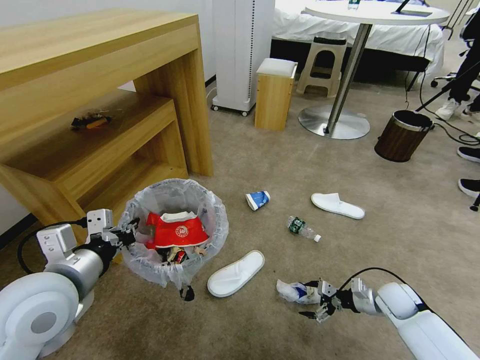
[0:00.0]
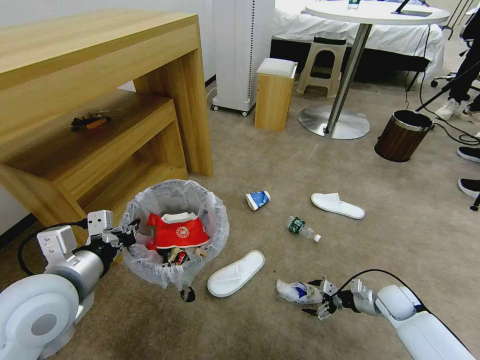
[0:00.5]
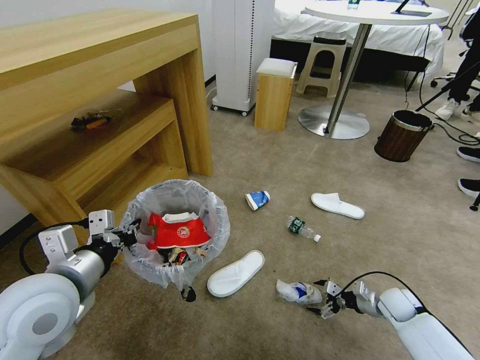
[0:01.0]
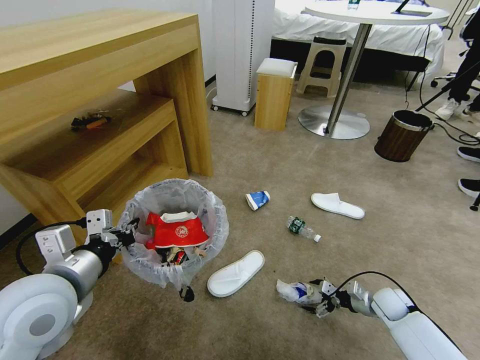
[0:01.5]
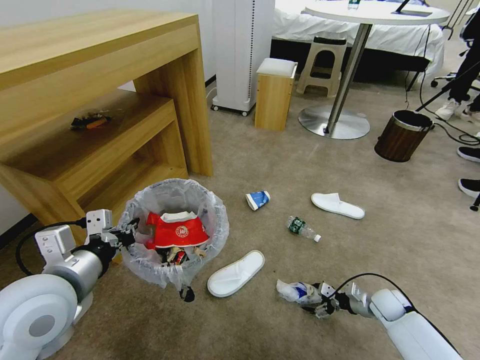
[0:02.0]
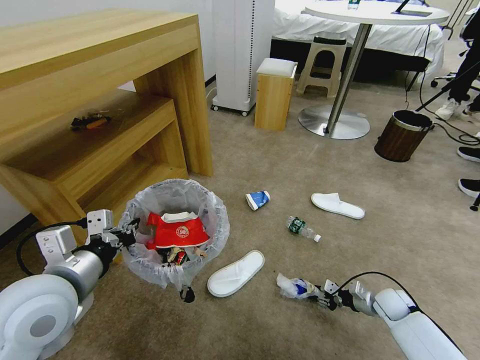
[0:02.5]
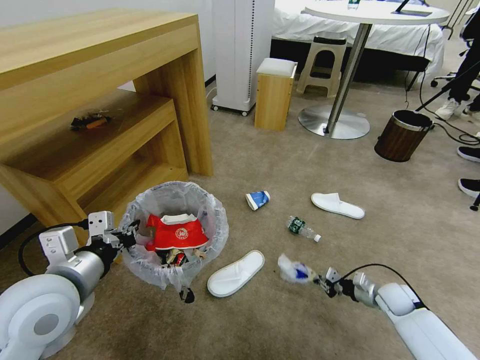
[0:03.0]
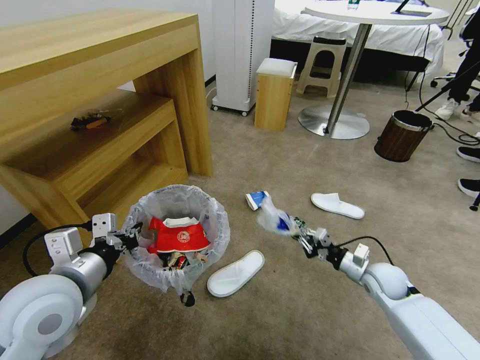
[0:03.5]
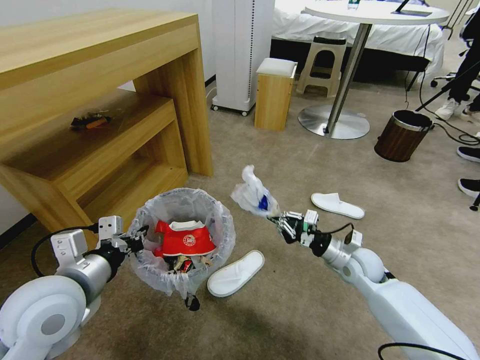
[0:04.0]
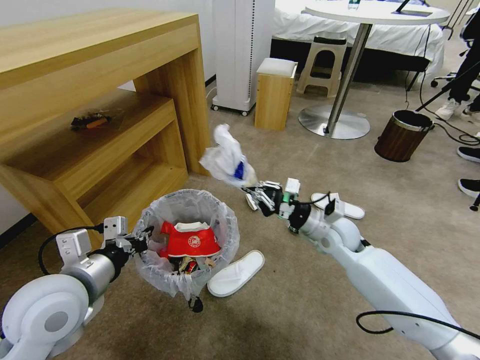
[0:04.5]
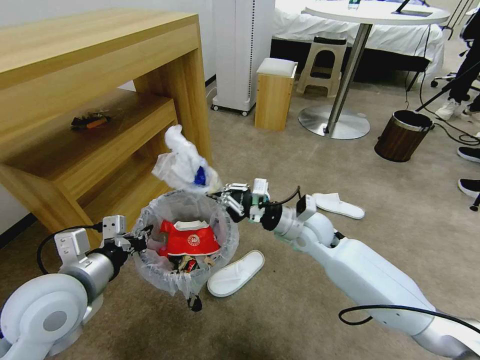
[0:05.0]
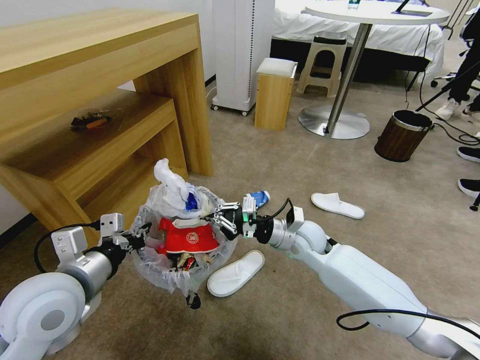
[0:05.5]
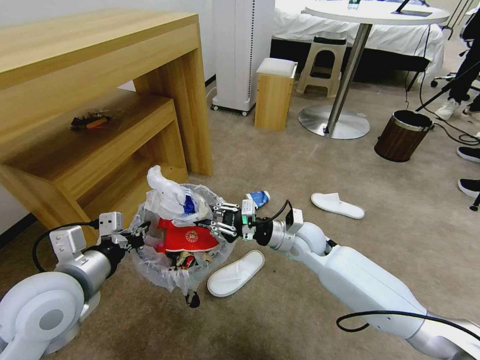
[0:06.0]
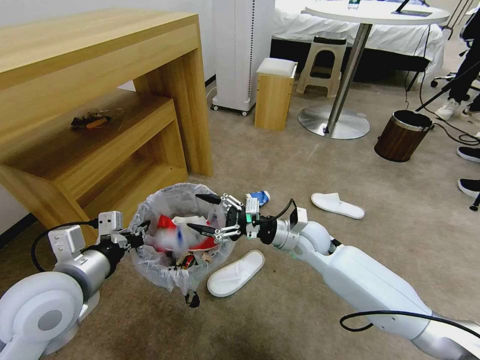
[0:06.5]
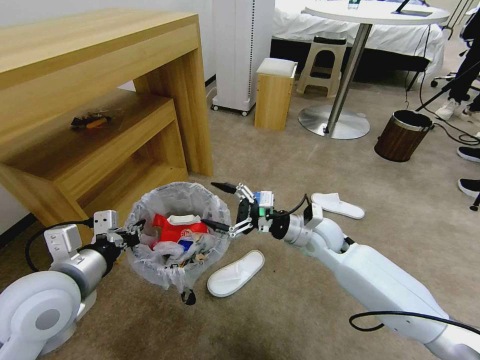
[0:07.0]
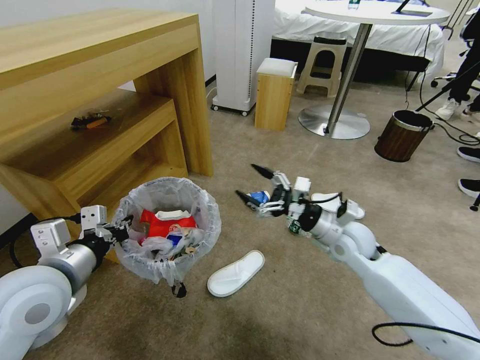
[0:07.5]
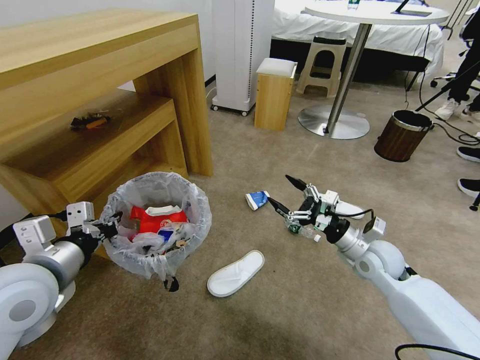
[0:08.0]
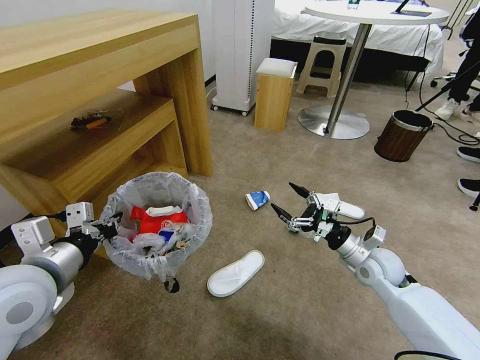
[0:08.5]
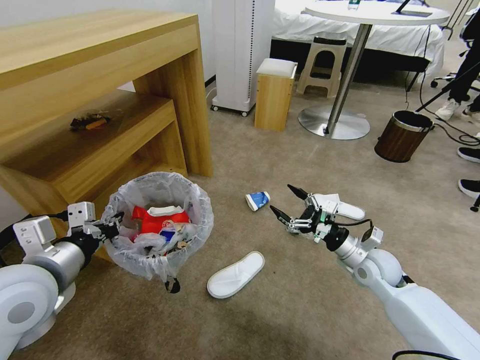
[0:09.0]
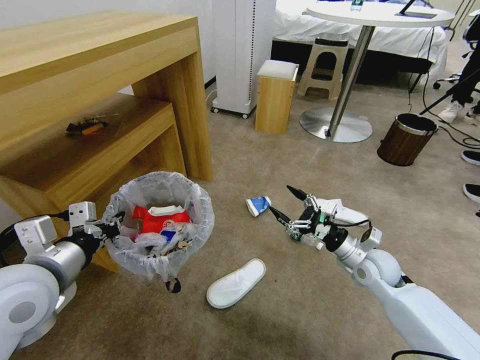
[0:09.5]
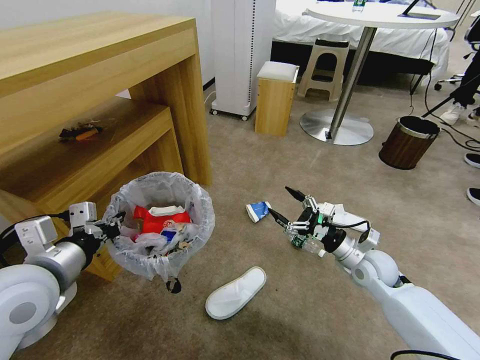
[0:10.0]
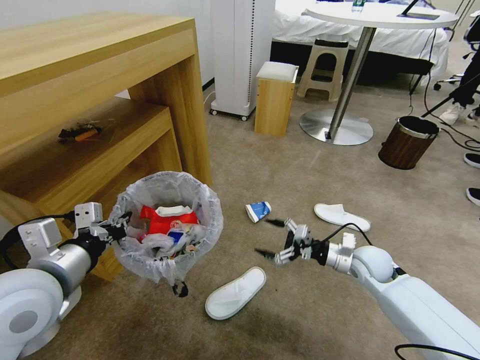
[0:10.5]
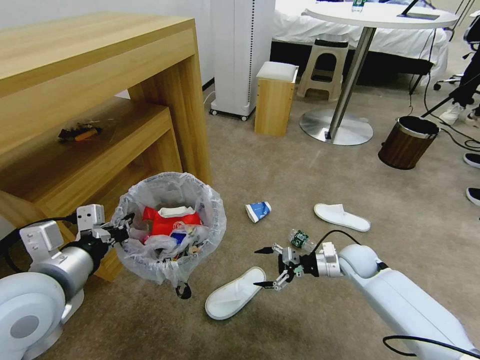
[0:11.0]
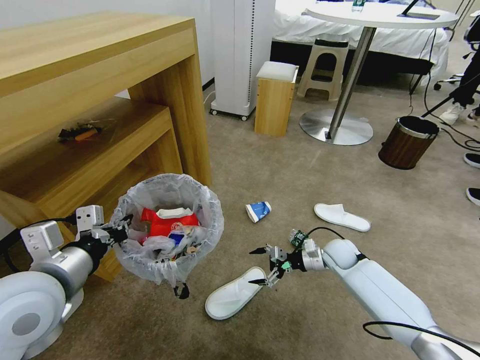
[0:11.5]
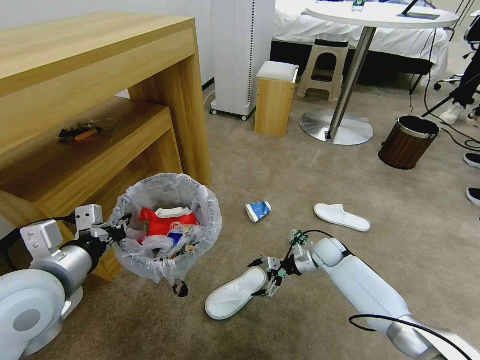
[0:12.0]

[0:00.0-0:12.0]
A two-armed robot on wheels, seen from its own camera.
Task of the whole recording: Pick up the trash bin and place the garbage on the floor into it.
0:00.0 to 0:02.0: The right gripper goes roughly 5 cm downward.
0:02.0 to 0:04.0: The right gripper moves upward and to the left, roughly 20 cm, and closes.
0:04.0 to 0:06.0: The right gripper goes some 15 cm to the left and upward.
0:06.0 to 0:08.0: The right gripper travels to the right by approximately 15 cm, and opens.
0:10.0 to 0:12.0: The right gripper moves downward and forward, approximately 15 cm.

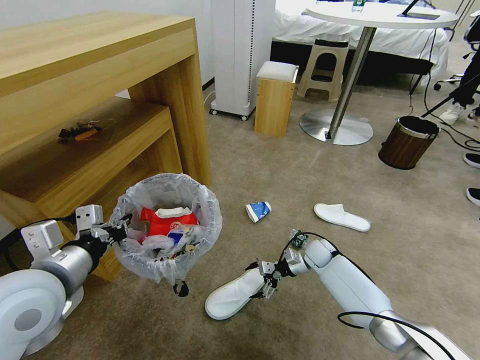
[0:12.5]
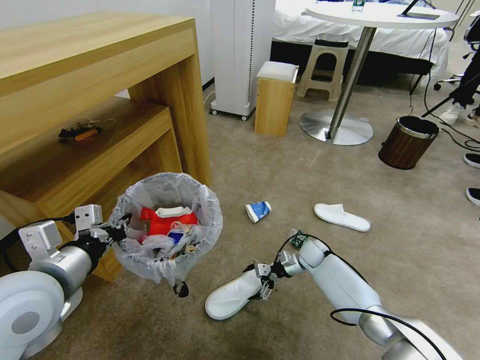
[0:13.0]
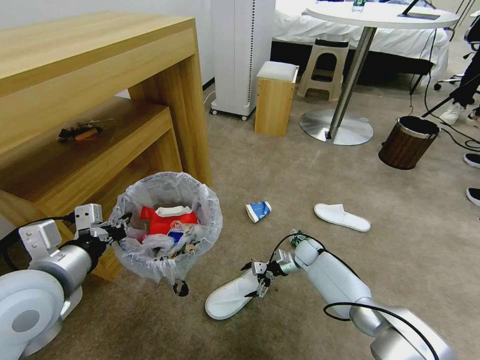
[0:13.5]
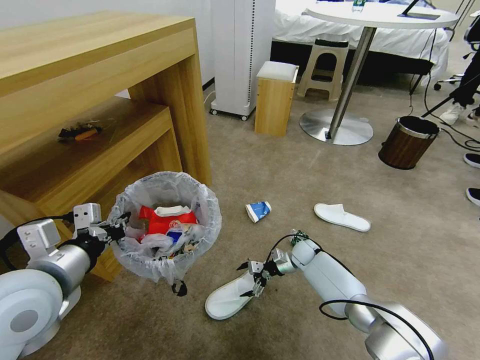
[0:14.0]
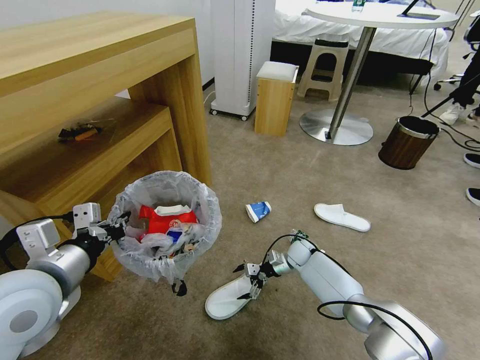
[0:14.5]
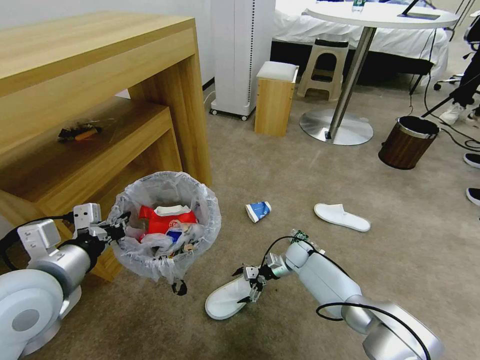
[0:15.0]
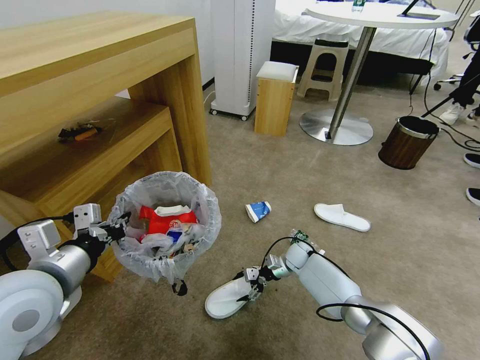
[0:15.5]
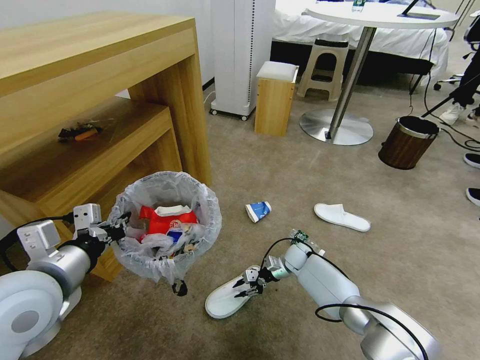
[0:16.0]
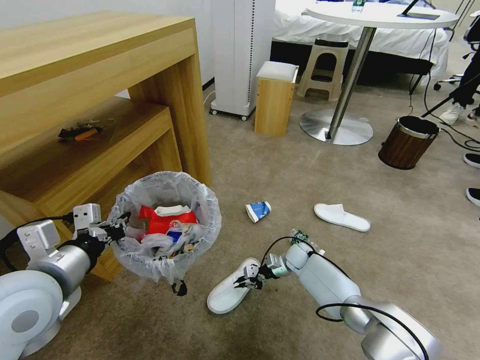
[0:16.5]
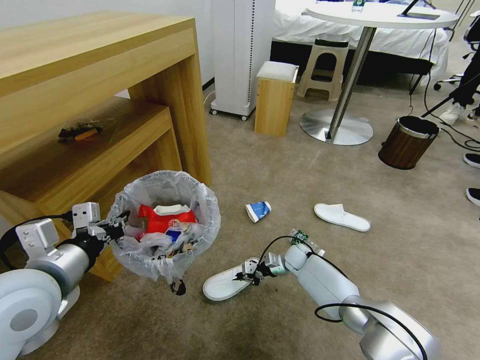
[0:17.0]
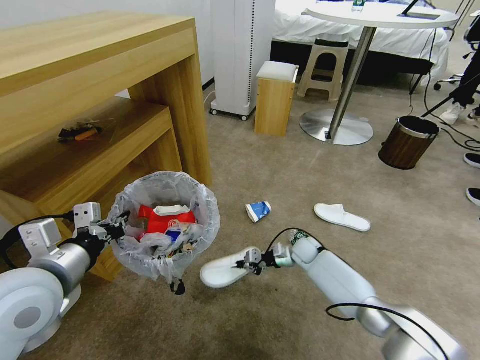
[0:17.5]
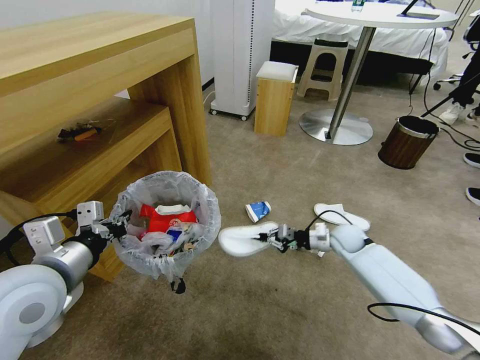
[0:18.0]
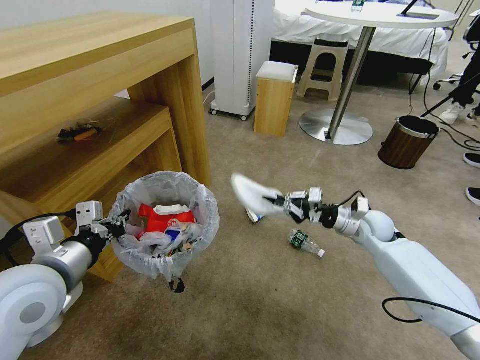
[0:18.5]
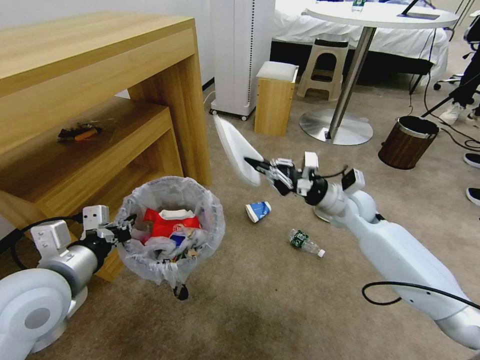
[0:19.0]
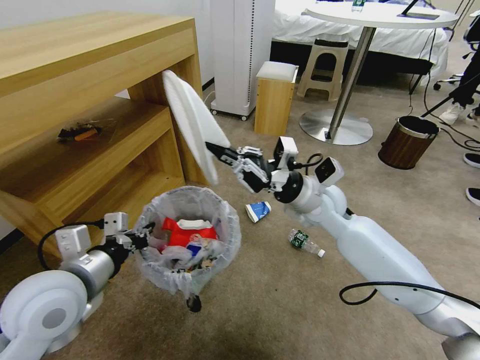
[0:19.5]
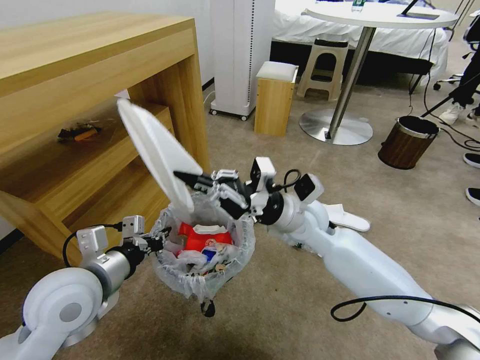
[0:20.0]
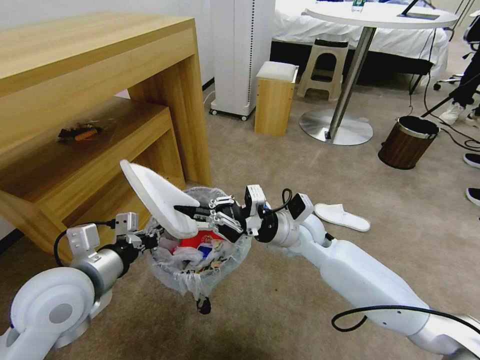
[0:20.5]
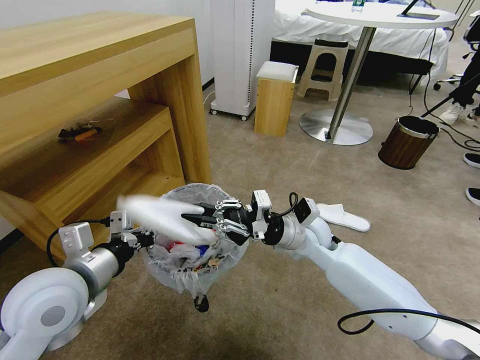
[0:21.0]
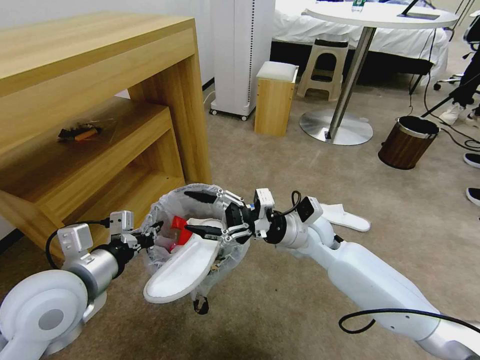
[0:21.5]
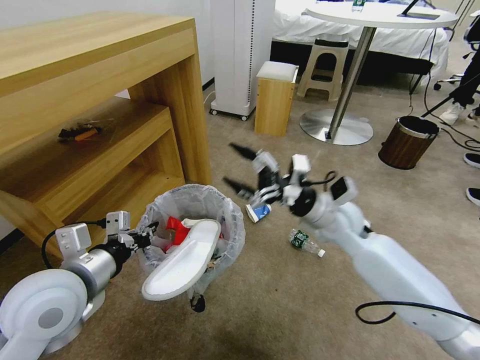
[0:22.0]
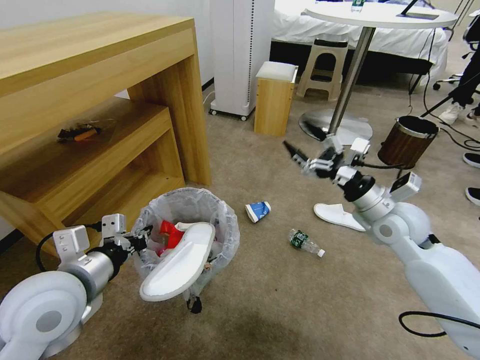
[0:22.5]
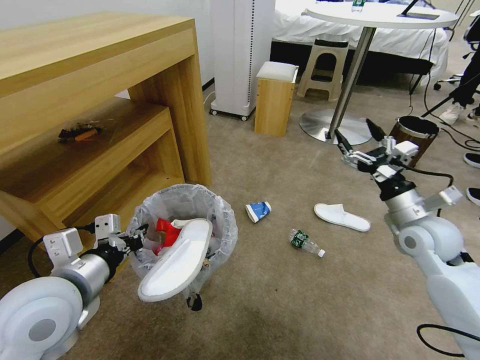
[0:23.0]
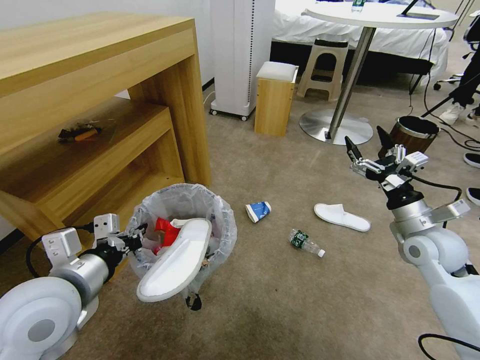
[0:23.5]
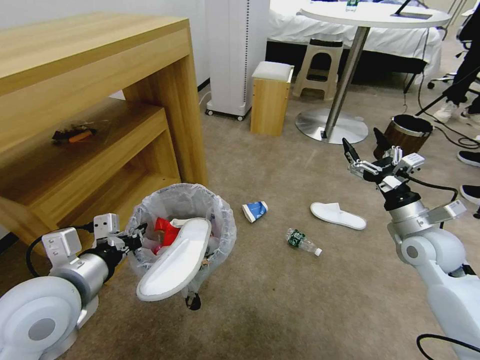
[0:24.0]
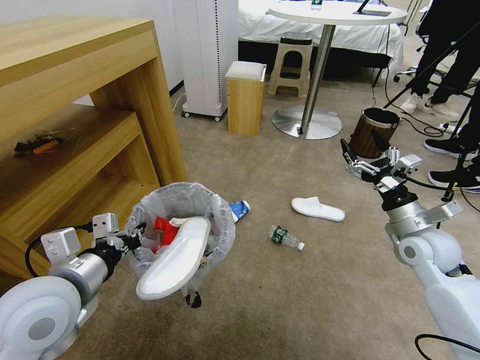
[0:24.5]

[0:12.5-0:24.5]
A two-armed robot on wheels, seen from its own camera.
Task of the whole recording: Pick up the trash bin and place the garbage on the floor into it.
0:12.5 to 0:14.5: The right gripper ends up about 5 cm from where it was.
0:14.5 to 0:16.5: The right gripper closes.
0:16.5 to 0:18.5: The right gripper heads upward and to the right, covering some 25 cm.
0:18.5 to 0:20.5: The right gripper heads to the left, covering about 20 cm.
0:20.5 to 0:22.5: The right gripper is displaced to the right by some 20 cm, and opens.
0:22.5 to 0:24.5: The right gripper moves to the right, some 5 cm.

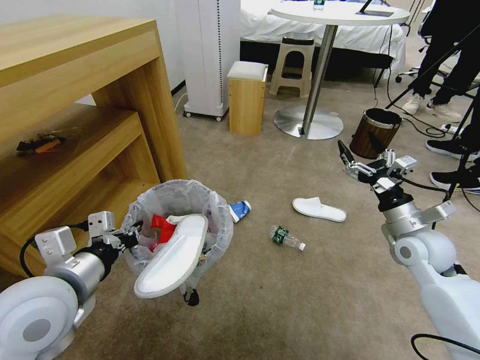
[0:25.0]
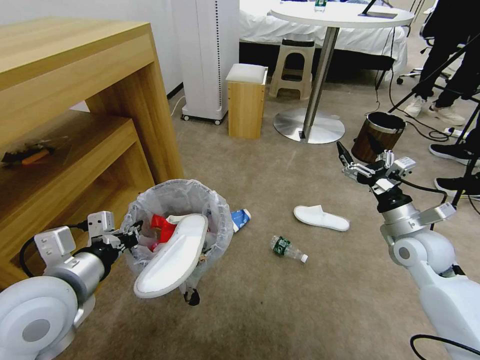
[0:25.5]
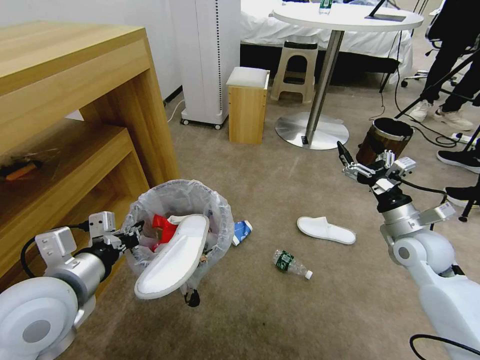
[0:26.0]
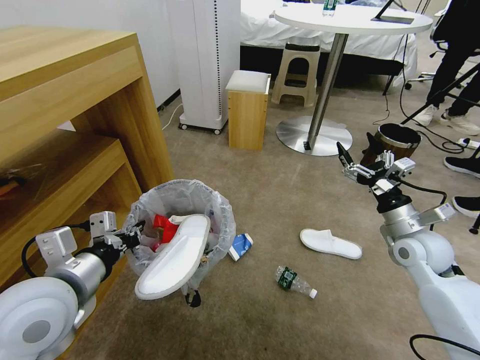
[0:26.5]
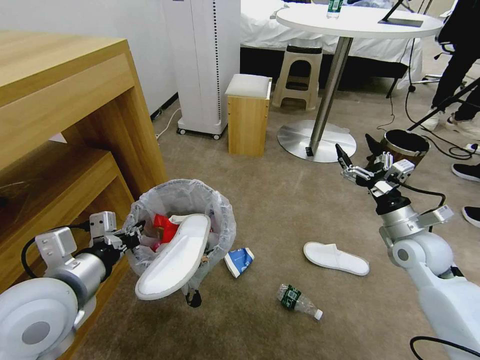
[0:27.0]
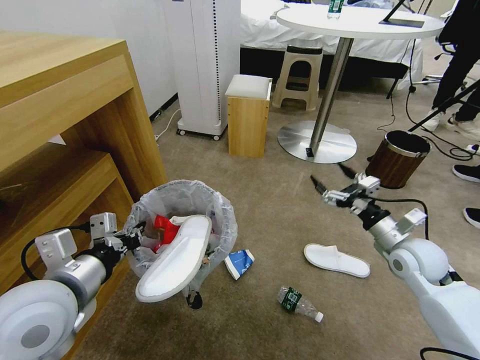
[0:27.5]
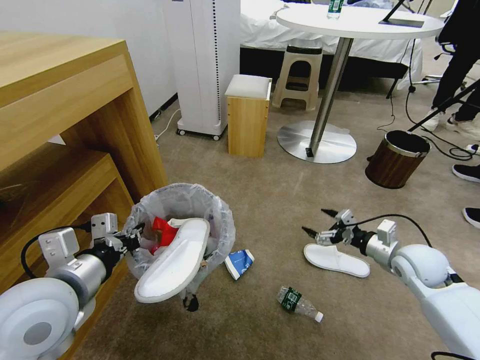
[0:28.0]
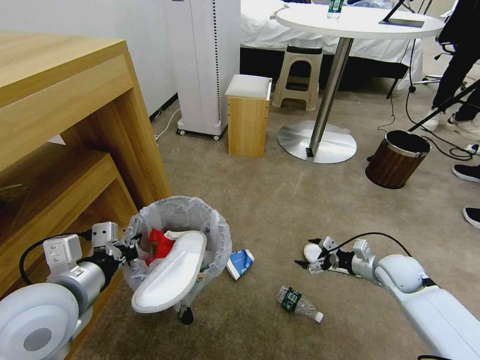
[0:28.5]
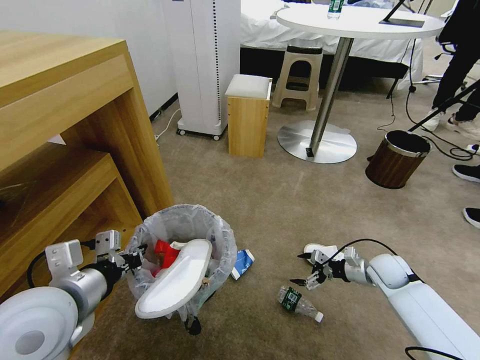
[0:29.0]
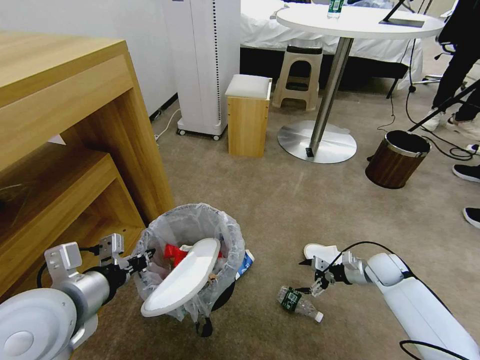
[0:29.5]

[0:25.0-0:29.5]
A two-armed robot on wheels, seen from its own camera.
Task of the whole recording: Pick up the trash bin and place the garbage on the floor into it.
0:27.0 to 0:29.5: The right gripper heads downward, covering roughly 20 cm.
